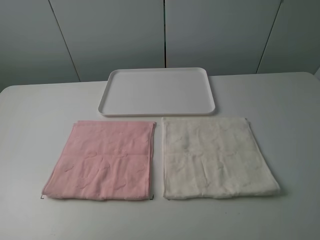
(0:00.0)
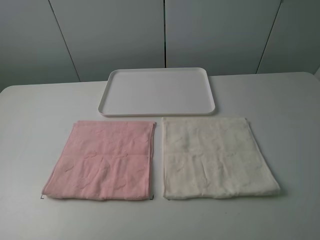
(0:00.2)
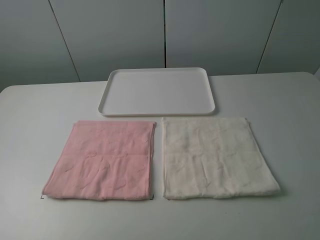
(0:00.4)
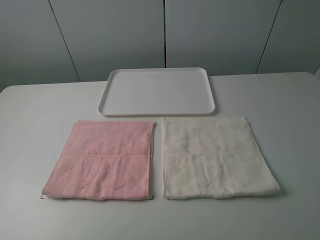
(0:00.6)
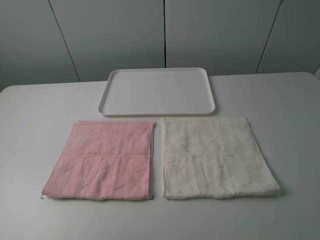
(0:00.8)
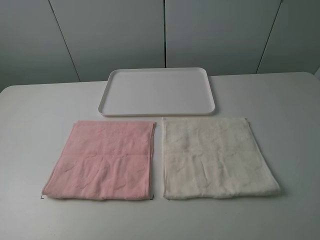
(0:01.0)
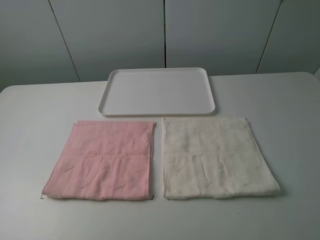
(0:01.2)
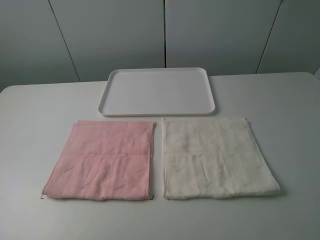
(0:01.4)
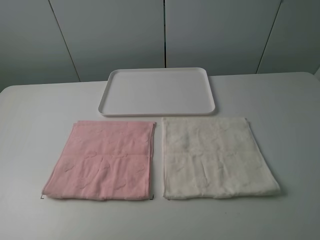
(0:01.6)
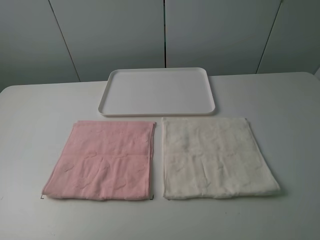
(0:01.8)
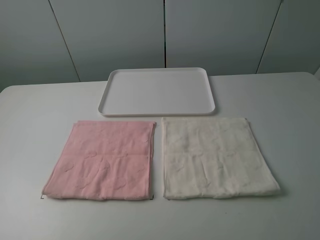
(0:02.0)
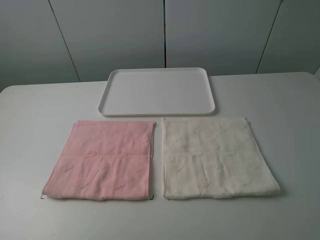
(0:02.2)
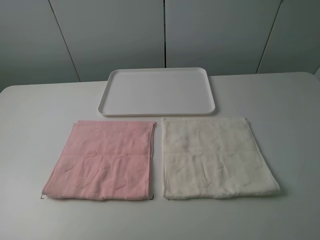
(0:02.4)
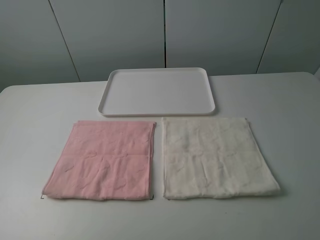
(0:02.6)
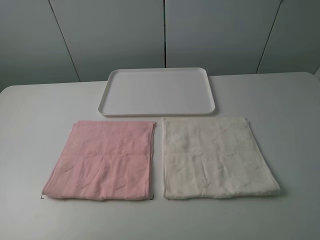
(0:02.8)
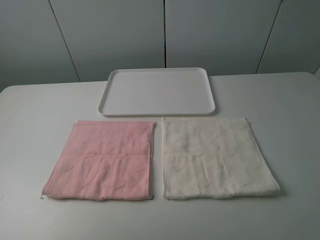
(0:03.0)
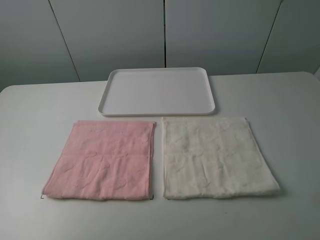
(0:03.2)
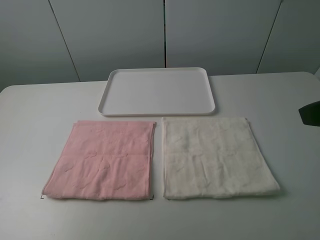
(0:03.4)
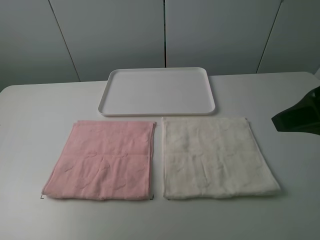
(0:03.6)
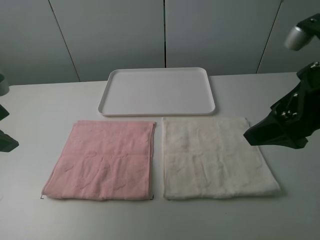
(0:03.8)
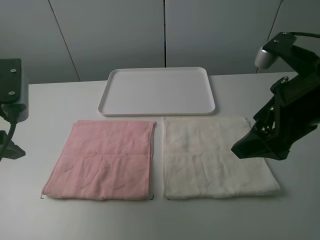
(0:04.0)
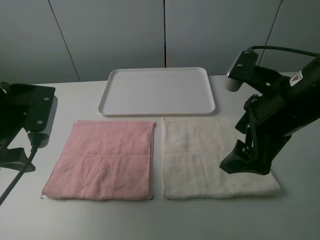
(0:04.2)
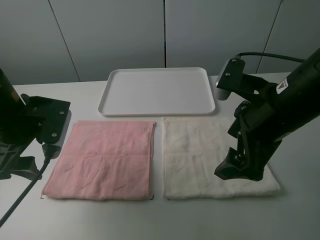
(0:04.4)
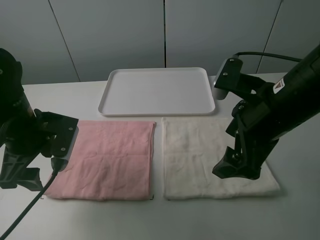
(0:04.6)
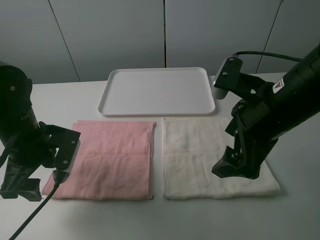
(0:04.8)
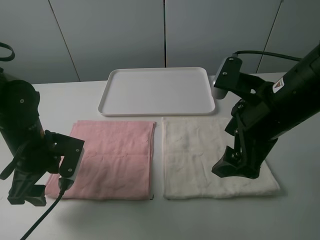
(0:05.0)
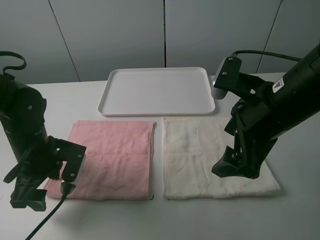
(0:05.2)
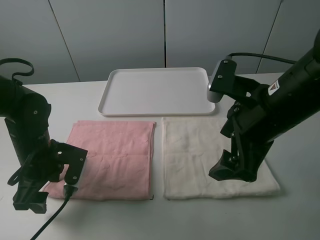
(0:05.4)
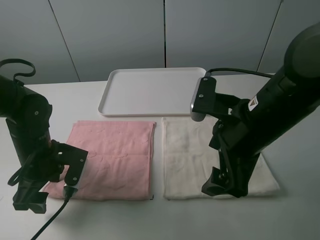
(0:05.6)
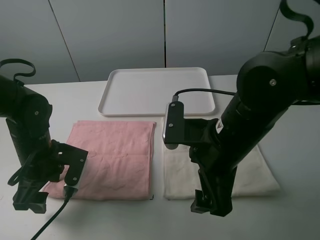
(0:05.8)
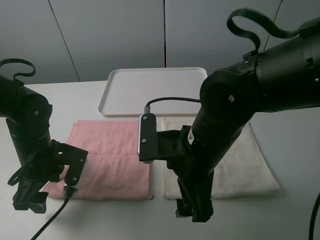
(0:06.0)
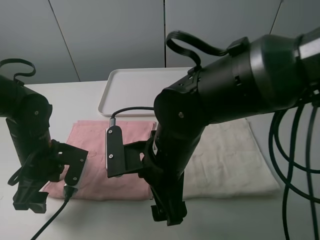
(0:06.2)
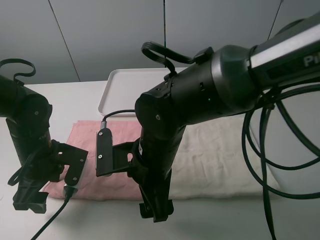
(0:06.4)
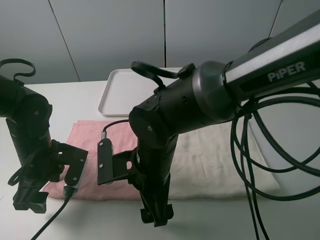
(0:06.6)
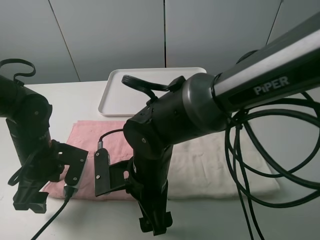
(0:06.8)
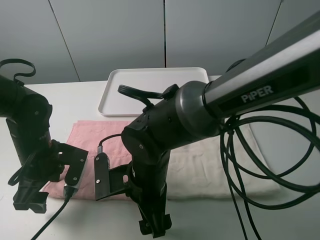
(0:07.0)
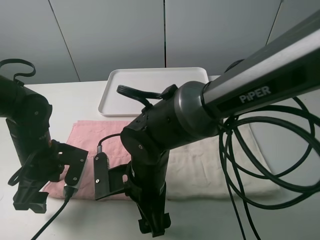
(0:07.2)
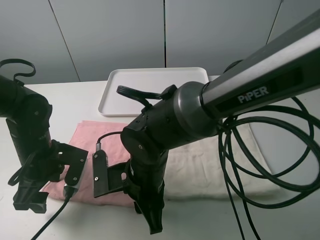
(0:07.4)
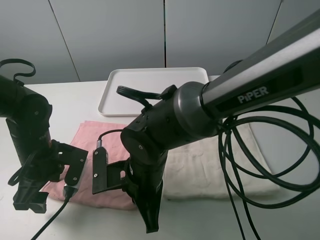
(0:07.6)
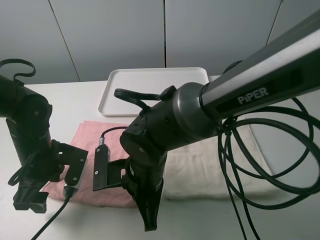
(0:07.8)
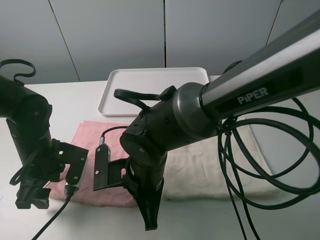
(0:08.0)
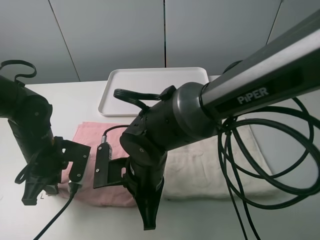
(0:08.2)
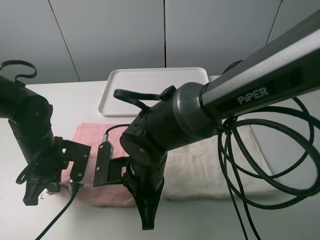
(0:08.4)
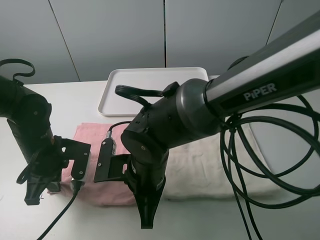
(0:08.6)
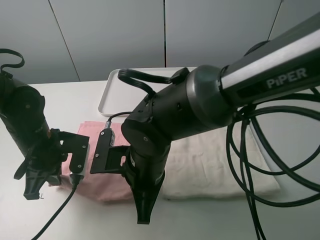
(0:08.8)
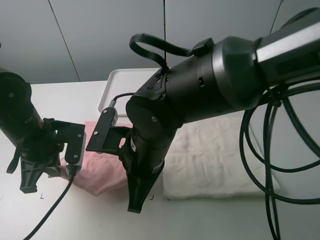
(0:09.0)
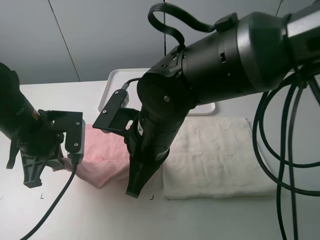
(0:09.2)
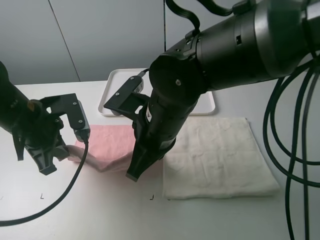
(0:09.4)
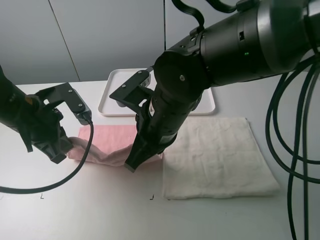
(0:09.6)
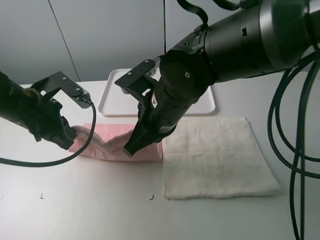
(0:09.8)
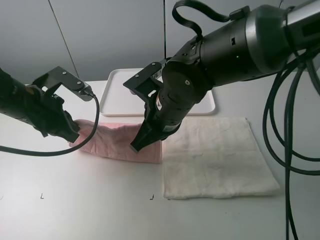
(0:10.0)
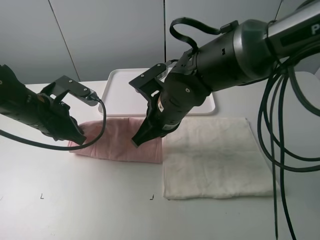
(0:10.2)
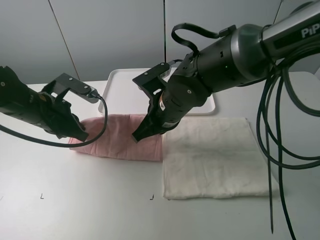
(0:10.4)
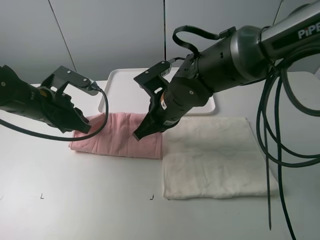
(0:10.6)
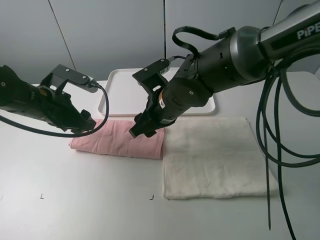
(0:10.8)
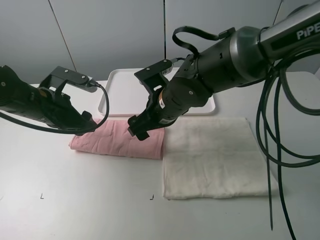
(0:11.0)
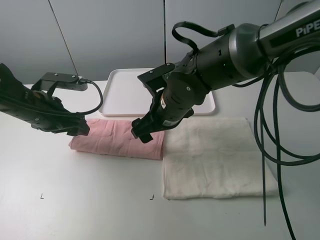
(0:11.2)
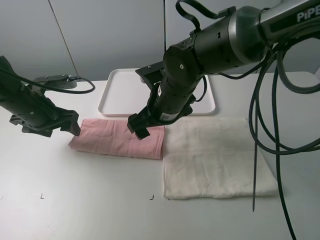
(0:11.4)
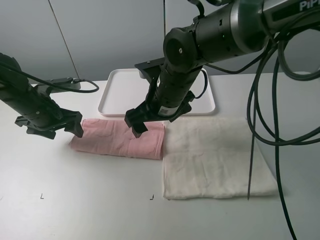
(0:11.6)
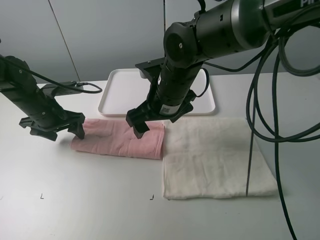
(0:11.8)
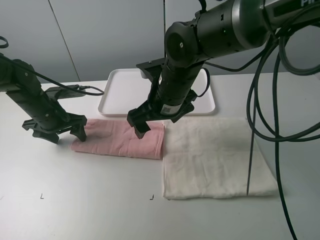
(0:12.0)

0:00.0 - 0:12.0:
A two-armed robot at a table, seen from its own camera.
Task of the whole recording: fold one of the towels by two grippers and place it on the tray,then fold another towel by two grippers and place it on the folded towel.
Step, 0:00.0 - 0:08.4: Grasp the pink towel with the left gripper.
Step, 0:08.6 - 0:10.8: Fold the pink towel upwards with the left gripper.
0:00.0 - 0:01.6: Both grippers stay about where they are.
0:03.0 - 0:04.4: The left gripper goes approximately 20 cm forward, downward and to the right. The right gripper goes about 20 cm forward, to the left and downward.
0:04.4 - 0:06.0: The left gripper travels downward by approximately 10 cm, while the right gripper moves to the left and downward, about 10 cm.
0:06.0 - 0:07.6: The right gripper heads to the left and downward, covering approximately 10 cm, and closes its fingers.
0:07.6 - 0:09.0: The right gripper heads upward, covering about 5 cm. Meanwhile the left gripper closes its fingers.
0:09.0 - 0:10.4: The right gripper goes some 10 cm forward.
0:10.4 - 0:12.0: The left gripper travels forward and downward by some 10 cm, and opens, while the right gripper opens its fingers.

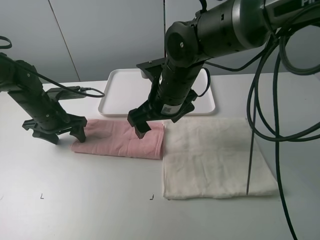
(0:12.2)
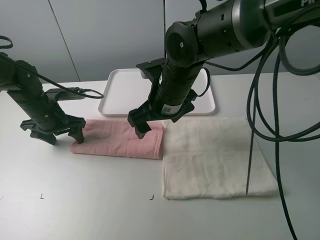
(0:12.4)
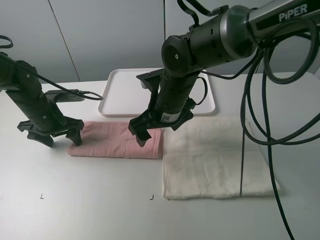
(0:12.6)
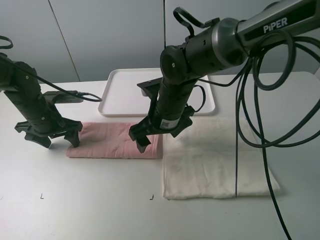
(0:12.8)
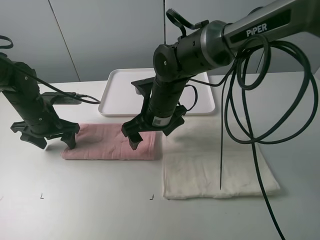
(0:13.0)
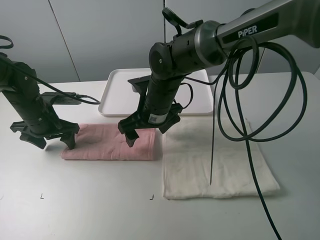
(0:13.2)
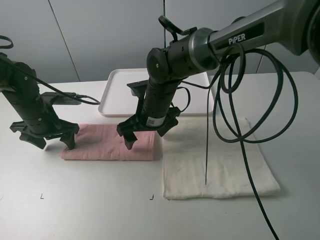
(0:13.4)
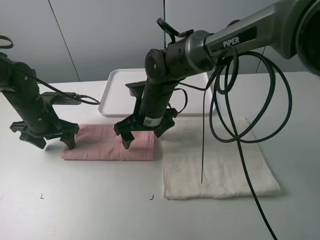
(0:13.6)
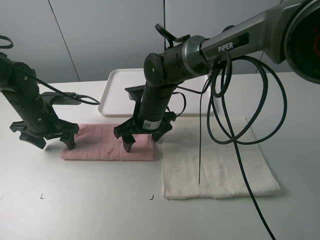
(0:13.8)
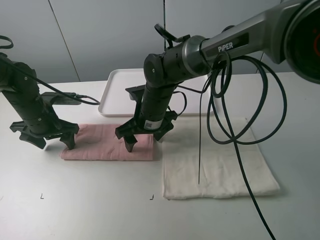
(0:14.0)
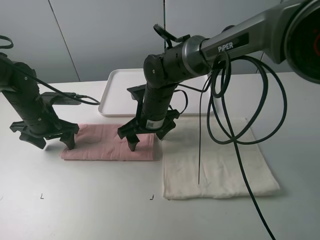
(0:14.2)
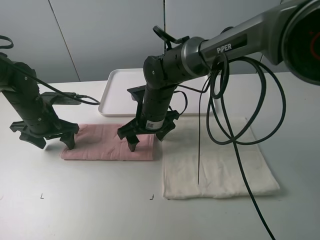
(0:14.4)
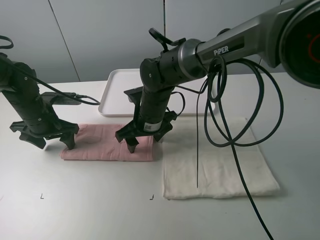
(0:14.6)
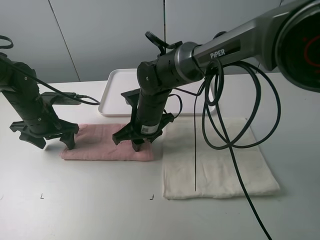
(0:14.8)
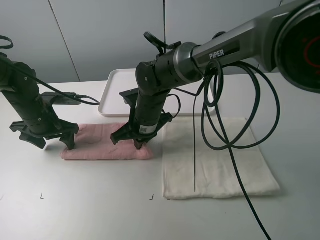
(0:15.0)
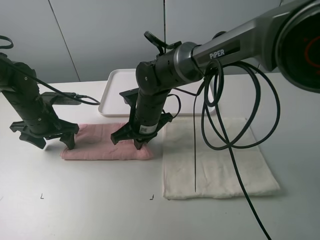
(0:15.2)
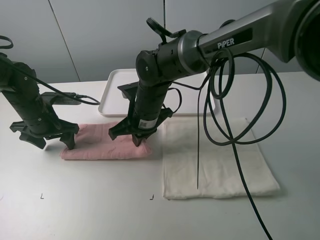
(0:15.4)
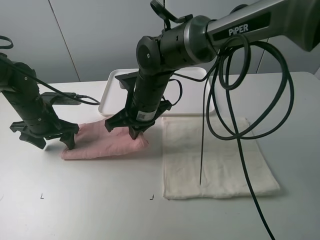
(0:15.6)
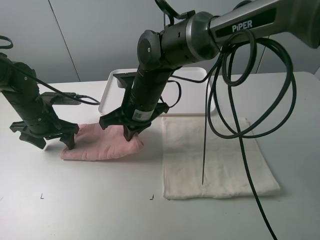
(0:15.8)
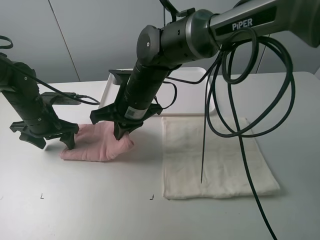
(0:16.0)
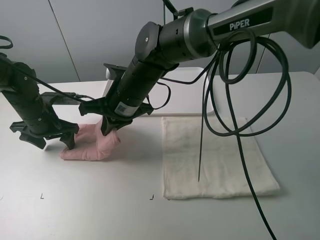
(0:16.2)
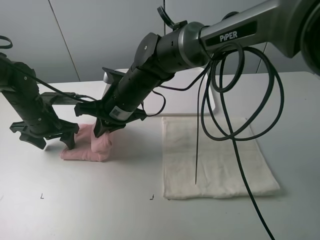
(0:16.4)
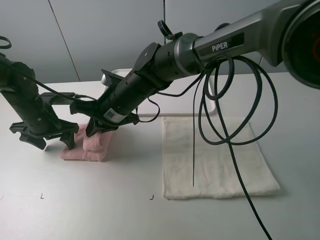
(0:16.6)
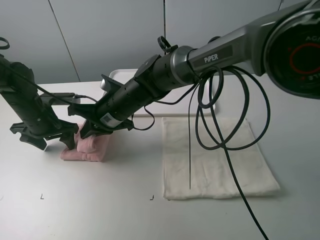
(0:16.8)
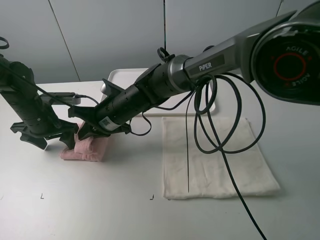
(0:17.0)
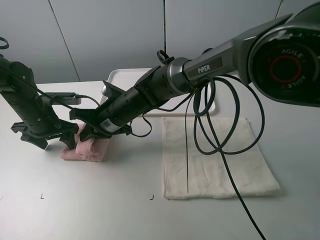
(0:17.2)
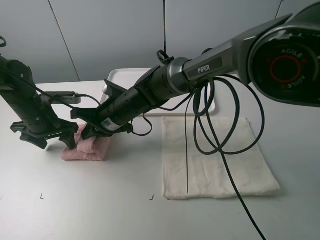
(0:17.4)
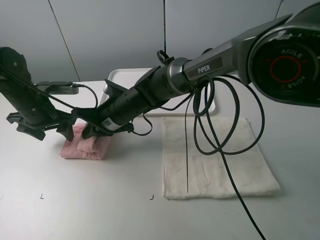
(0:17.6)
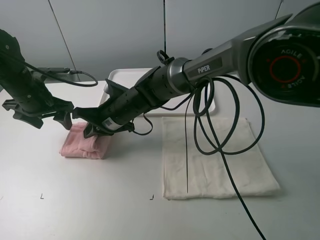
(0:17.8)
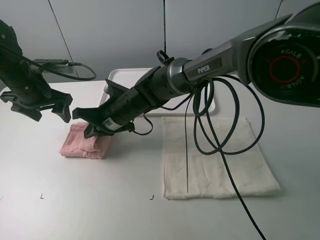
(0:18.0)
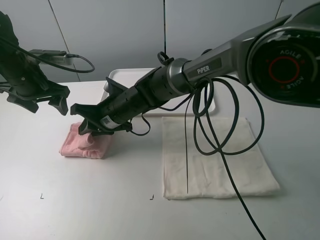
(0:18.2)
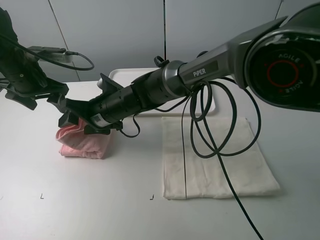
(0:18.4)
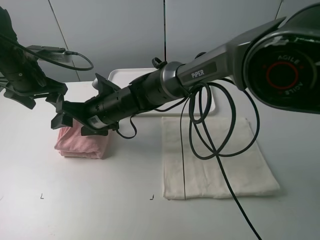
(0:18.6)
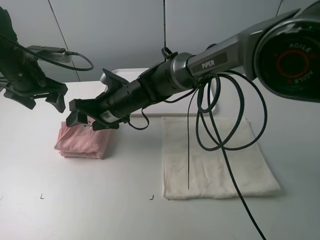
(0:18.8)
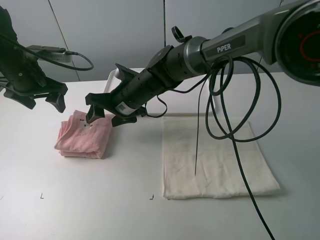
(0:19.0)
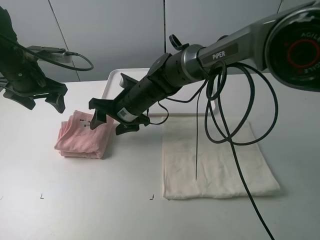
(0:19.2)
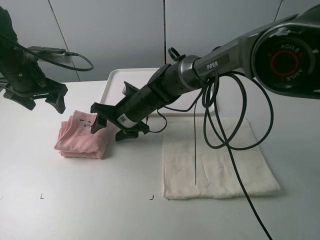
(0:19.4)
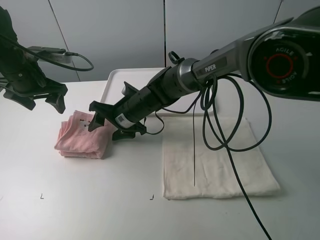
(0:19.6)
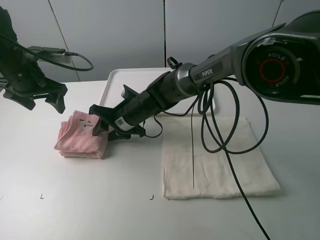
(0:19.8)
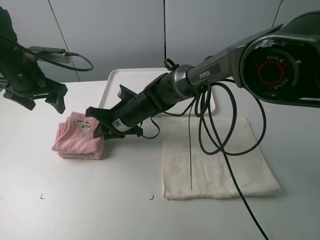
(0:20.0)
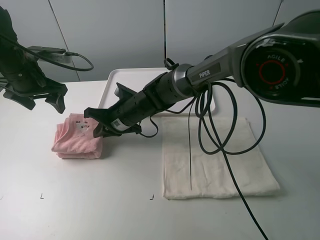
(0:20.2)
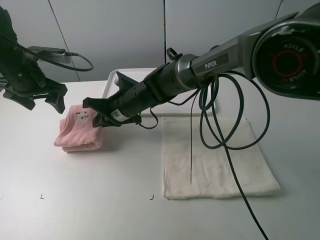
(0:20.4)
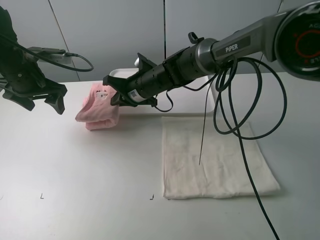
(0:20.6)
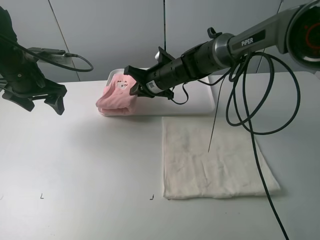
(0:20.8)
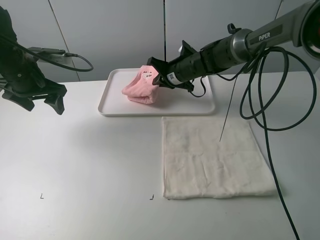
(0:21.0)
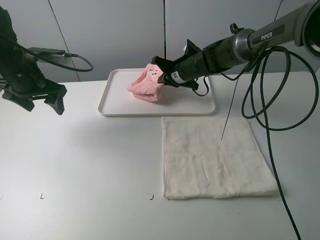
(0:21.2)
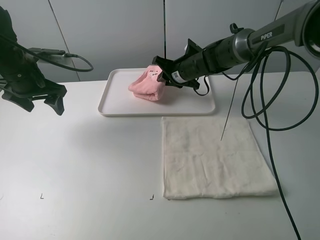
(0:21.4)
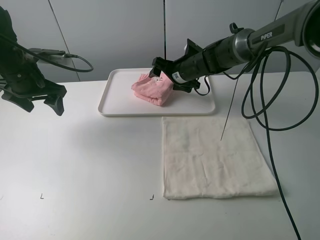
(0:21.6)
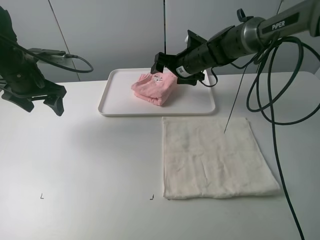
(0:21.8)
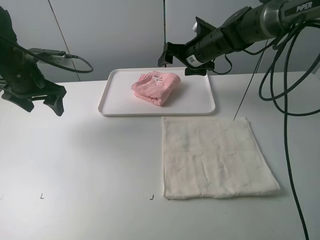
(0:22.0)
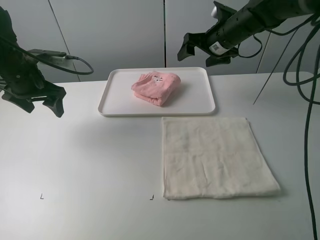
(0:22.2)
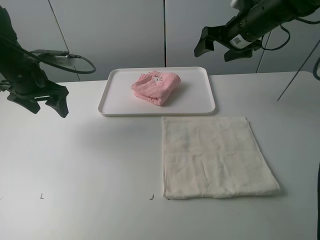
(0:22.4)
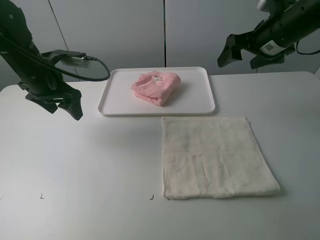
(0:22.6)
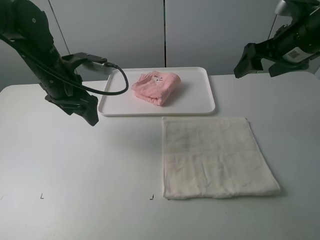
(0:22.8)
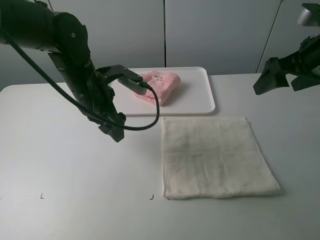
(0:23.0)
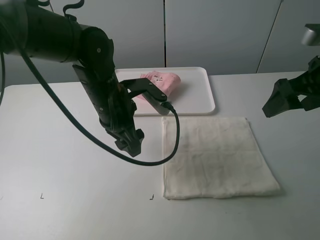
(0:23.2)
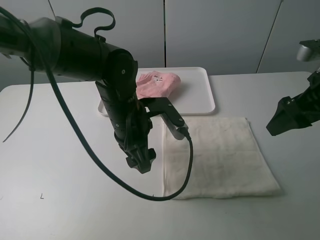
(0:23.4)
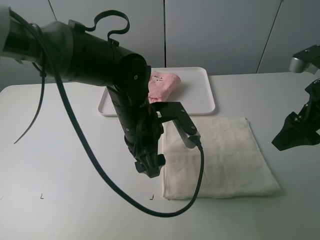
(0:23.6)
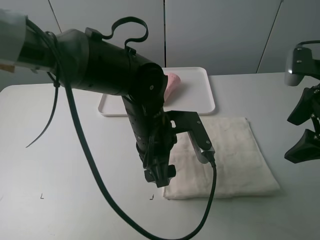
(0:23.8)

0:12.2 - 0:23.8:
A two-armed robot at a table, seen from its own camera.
Task of the whole recording: fold one of the towels by two grippers and place it on the tray,then fold another towel by two grippers and place it on the folded towel.
Step, 0:12.6 - 0:15.0: Grasp the pink towel with the right gripper.
Step, 0:15.2 - 0:19.0: Fold the pink towel from right to left with right gripper.
Step, 0:19.2 - 0:20.0: Grasp the pink towel with the right gripper.
Step, 0:20.2 - 0:21.8: Move the pink towel to the plate with the right gripper.
0:12.2 - 0:13.6: The right gripper is displaced downward by some 5 cm.
0:13.6 - 0:15.0: The right gripper closes its fingers.
0:15.0 - 0:16.6: The right gripper shifts by about 5 cm.
0:16.6 - 0:18.0: The left gripper goes roughly 10 cm upward.
0:18.0 - 0:19.4: The right gripper opens up.
0:19.4 - 0:21.0: The right gripper goes roughly 15 cm to the right and forward, and closes its fingers.
0:21.0 - 0:22.4: The right gripper shifts approximately 20 cm upward and to the right, and opens.
0:22.4 - 0:23.8: The right gripper shifts roughly 20 cm backward; the left gripper is displaced to the right and backward by roughly 30 cm.
